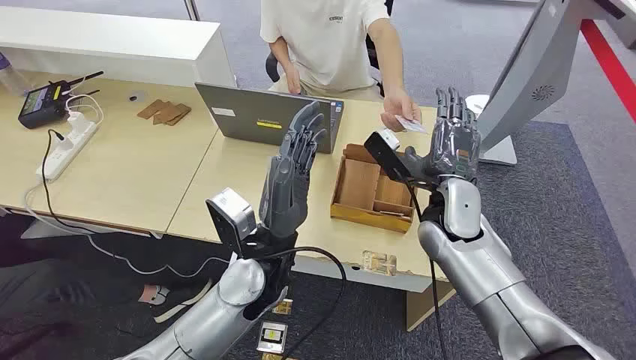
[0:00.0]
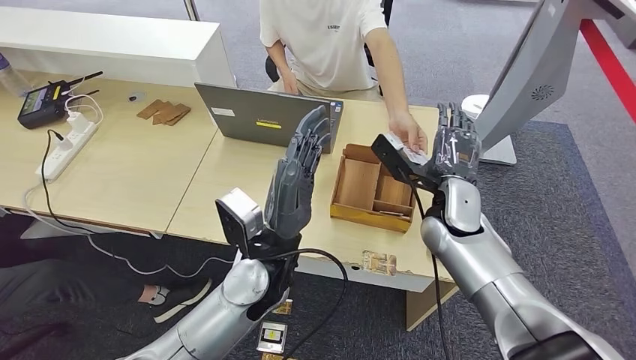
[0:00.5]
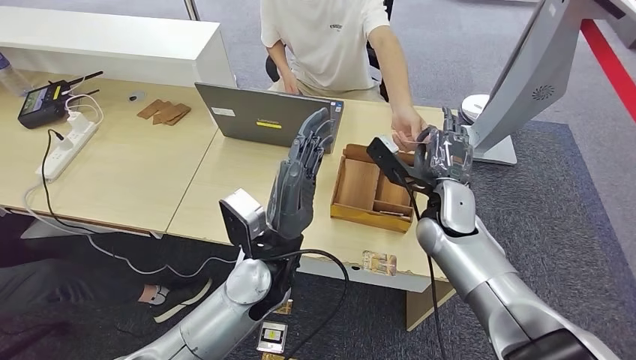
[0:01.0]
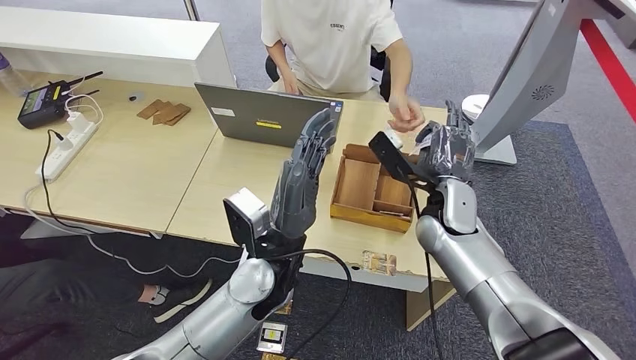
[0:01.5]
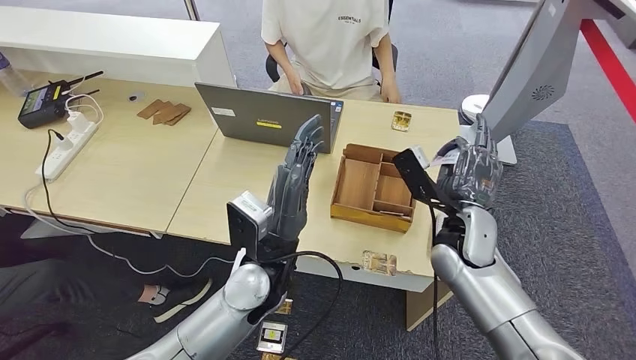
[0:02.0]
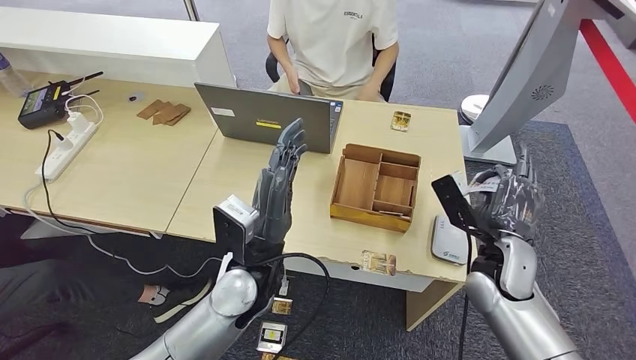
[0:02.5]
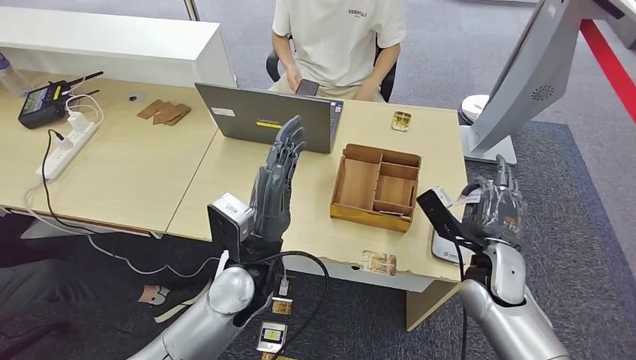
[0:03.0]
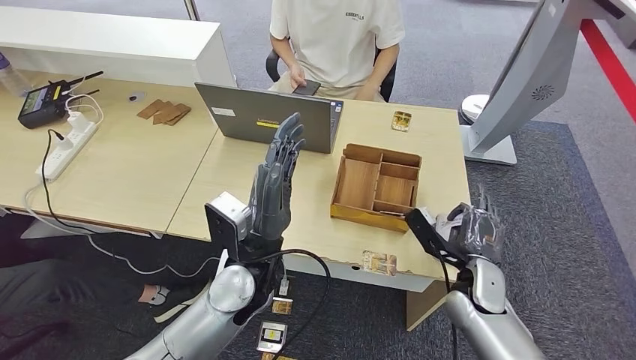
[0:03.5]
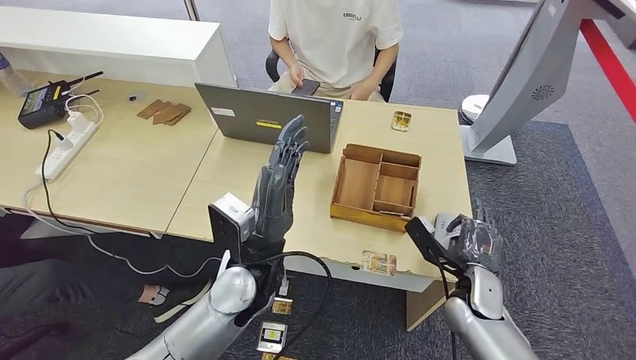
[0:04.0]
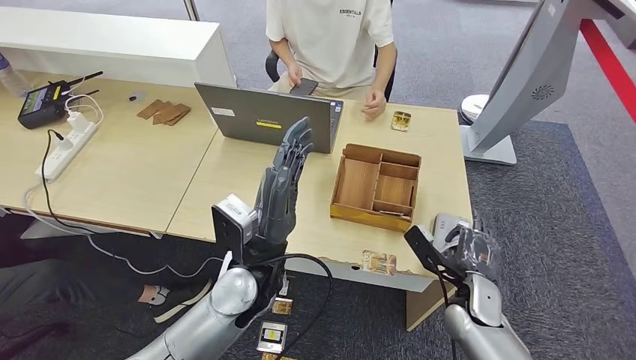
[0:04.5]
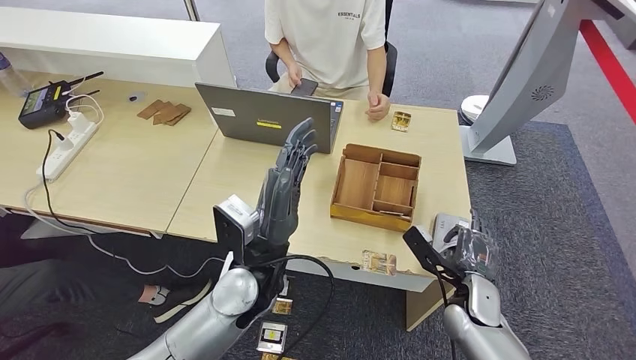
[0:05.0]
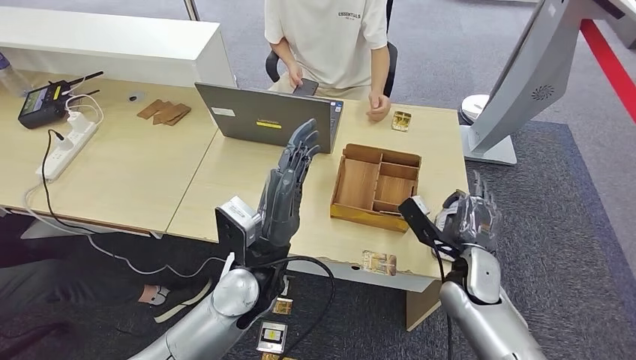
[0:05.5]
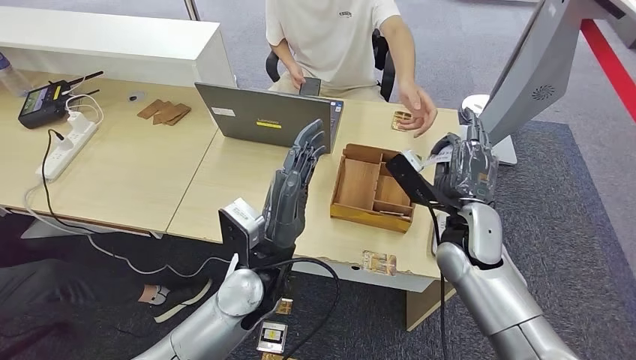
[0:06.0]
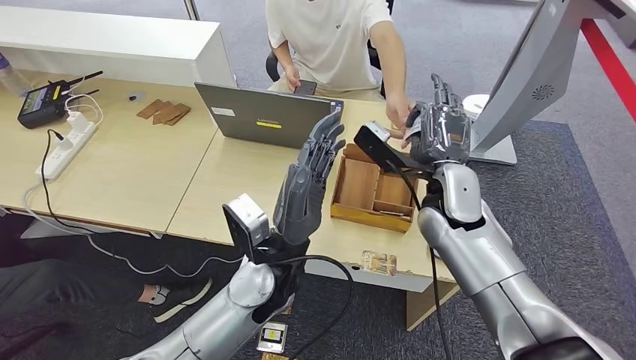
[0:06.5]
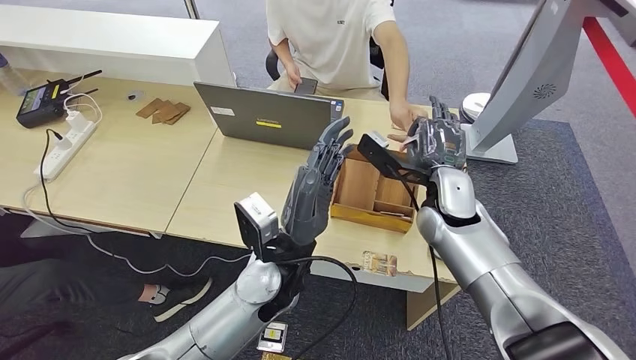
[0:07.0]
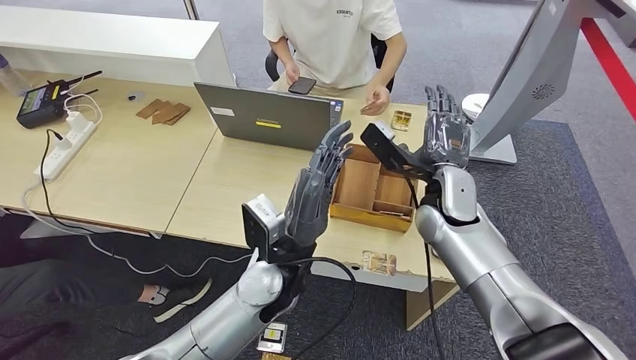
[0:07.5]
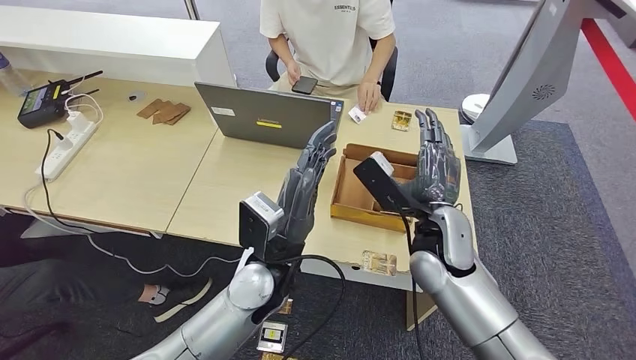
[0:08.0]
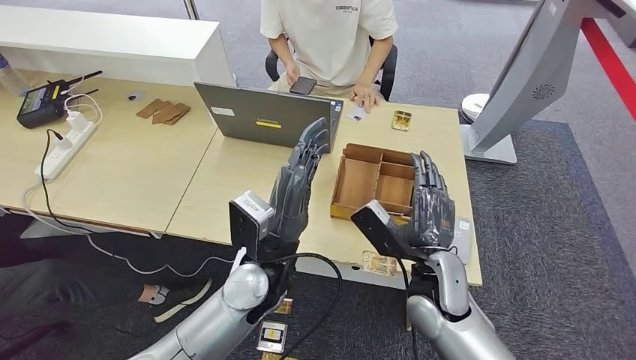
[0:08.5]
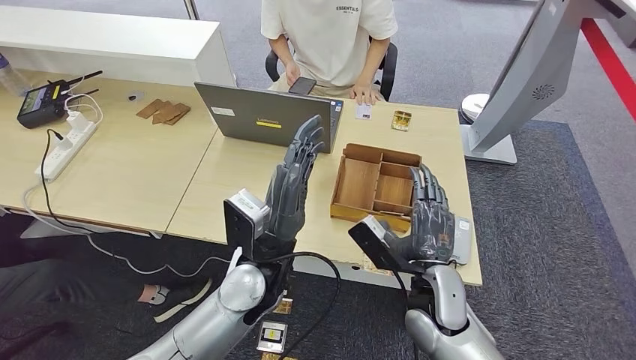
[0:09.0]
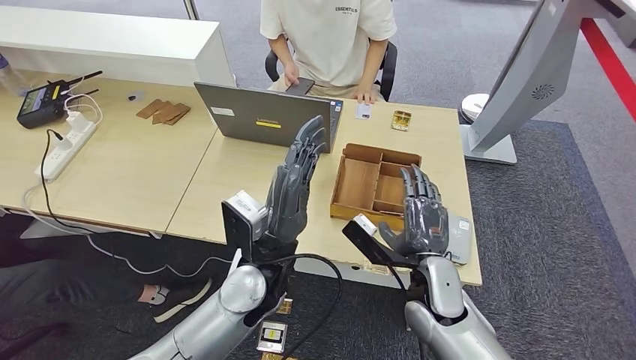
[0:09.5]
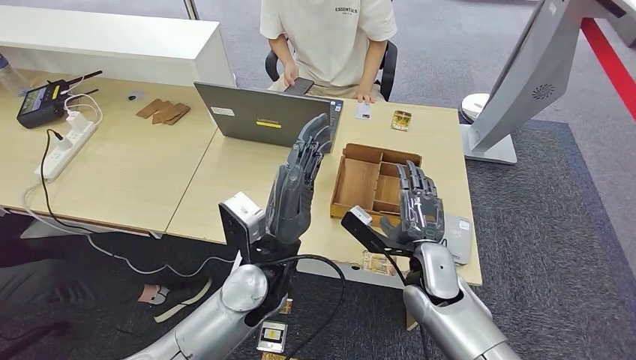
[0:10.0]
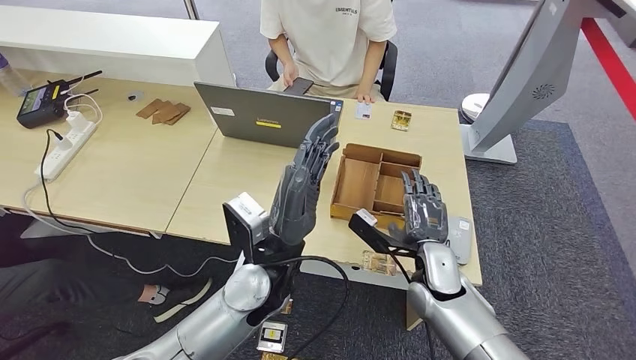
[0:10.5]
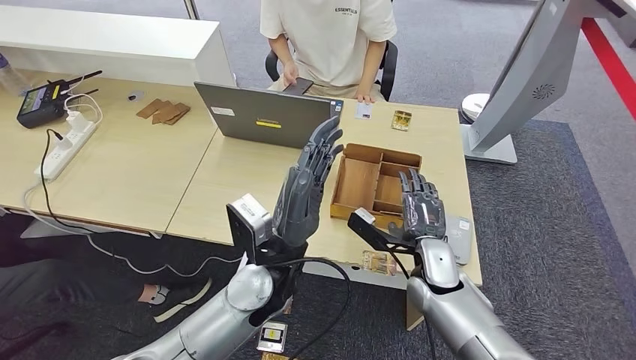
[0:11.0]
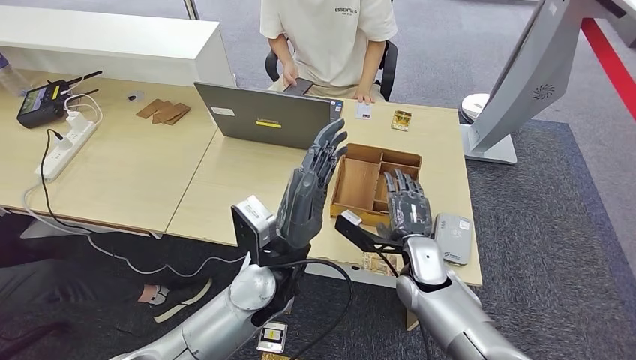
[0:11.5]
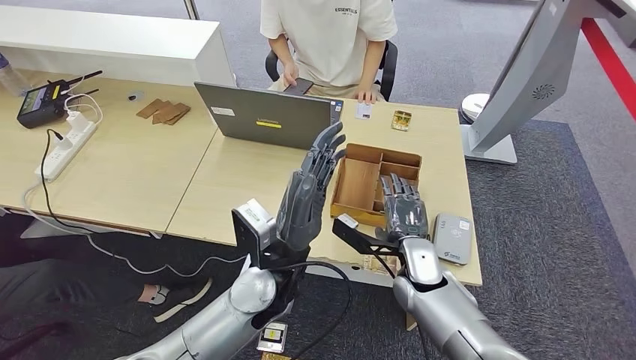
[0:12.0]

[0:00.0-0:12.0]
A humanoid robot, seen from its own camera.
Step, 0:00.0 to 0:02.5: Take the ID card from the person's hand.
Step, 0:03.0 to 0:05.5: Place the ID card on the card reader.
Step, 0:06.5 to 0:08.0: Place the ID card on the card reader.
0:02.0 to 0:04.0: The right hand is displaced downward, to the right and backward by approximately 15 cm.
0:04.0 to 0:06.0: The right hand heads upward and to the left, covering roughly 15 cm.
0:06.0 to 0:08.0: The right hand shifts some 5 cm to the left.
0:08.0 to 0:10.0: The right hand travels downward by approximately 10 cm.
0:10.0 to 0:12.0: The hands stay close to where they were, moving slightly.

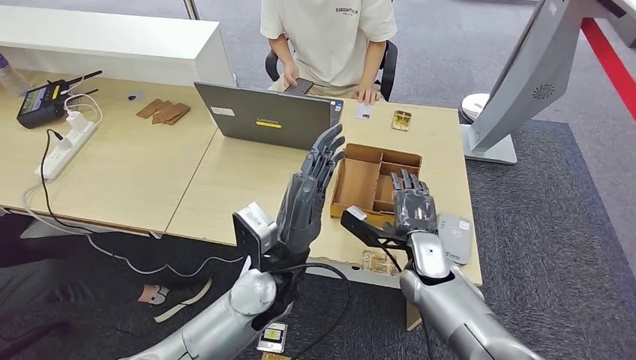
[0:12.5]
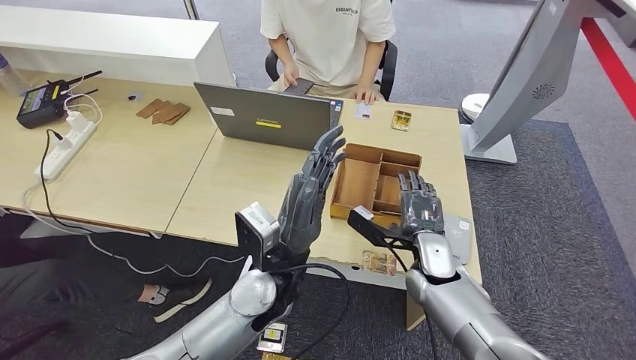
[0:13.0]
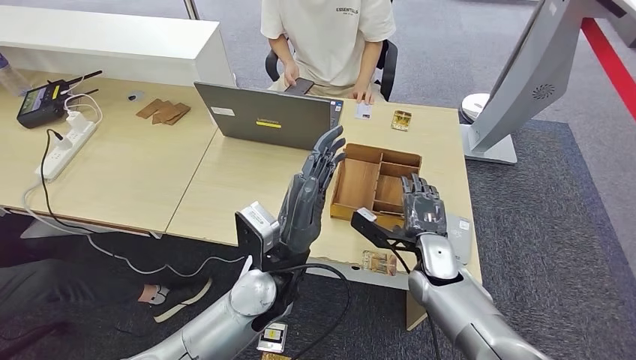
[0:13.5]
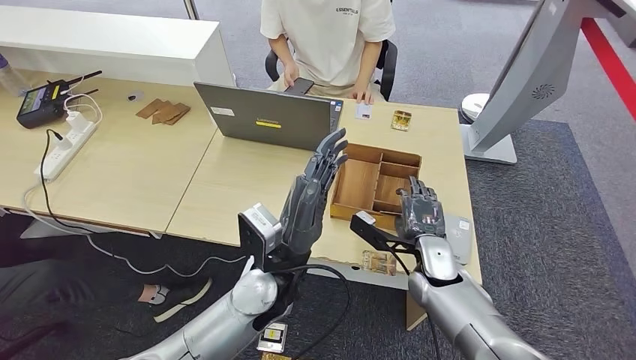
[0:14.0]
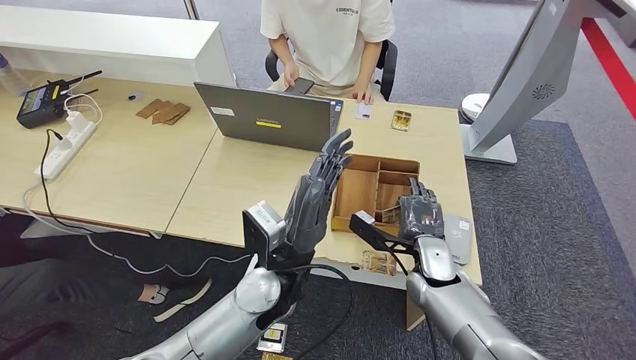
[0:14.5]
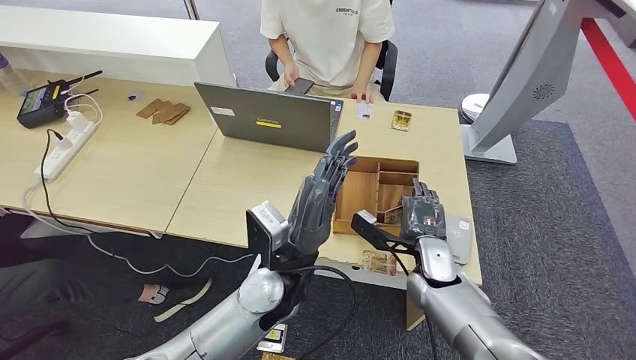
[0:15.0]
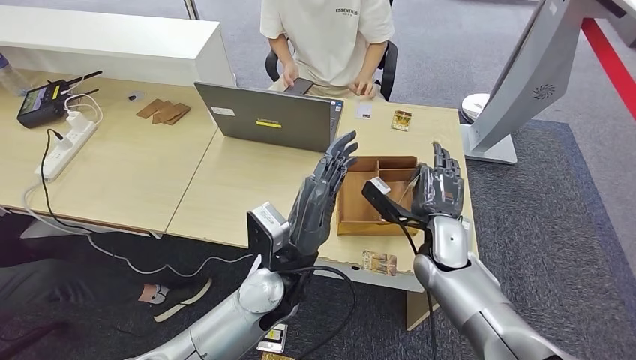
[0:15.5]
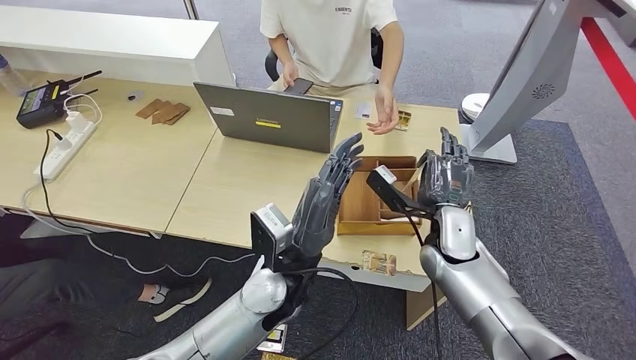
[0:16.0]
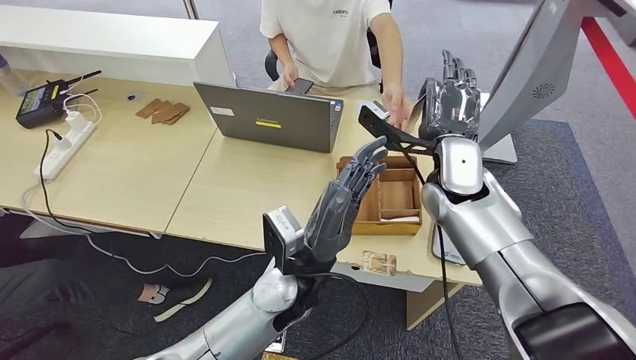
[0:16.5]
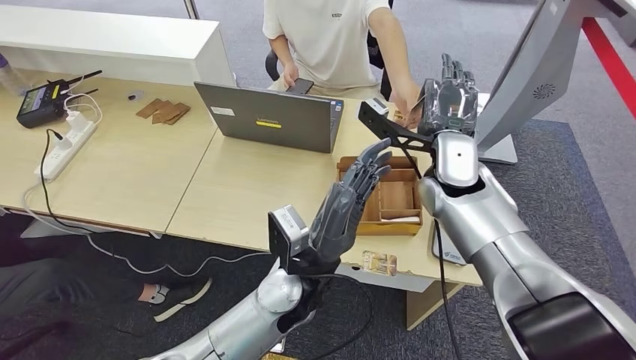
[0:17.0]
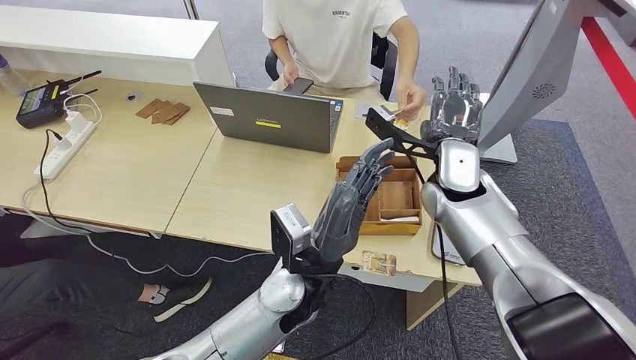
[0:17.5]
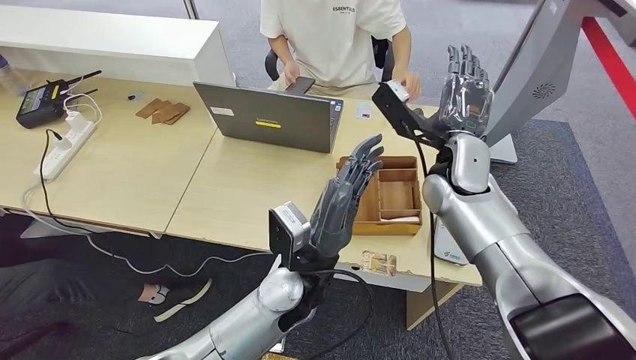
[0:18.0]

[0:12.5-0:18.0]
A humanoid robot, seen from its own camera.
Step, 0:14.0 to 0:16.0: Pick up the room key from the key card box.
Step, 0:16.5 to 0:18.0: Hand the room key to the person.
0:12.5 to 0:14.5: The hands make only small movements.
0:14.5 to 0:16.0: The right hand moves upward, roughly 5 cm.
